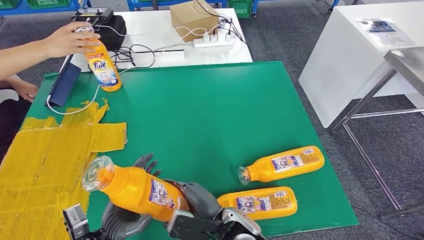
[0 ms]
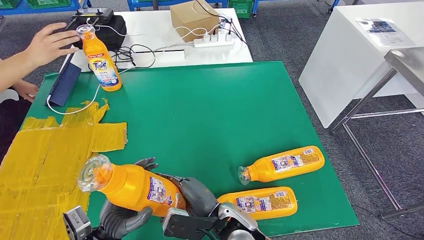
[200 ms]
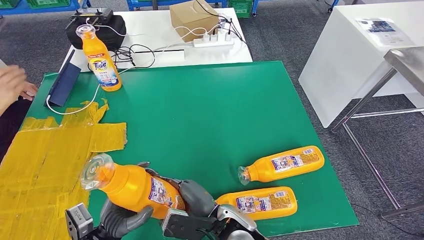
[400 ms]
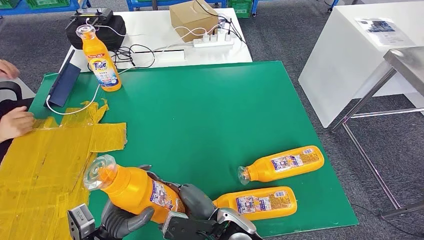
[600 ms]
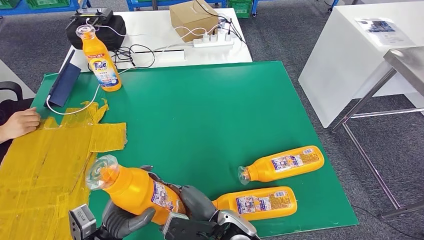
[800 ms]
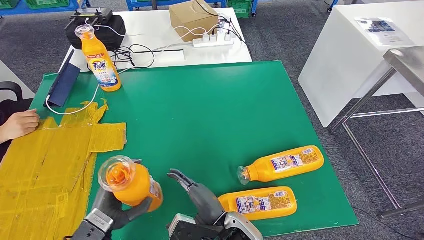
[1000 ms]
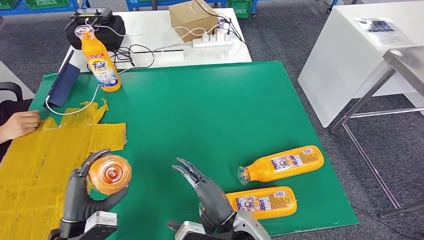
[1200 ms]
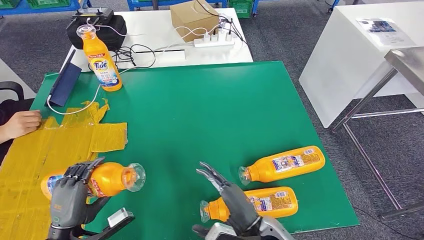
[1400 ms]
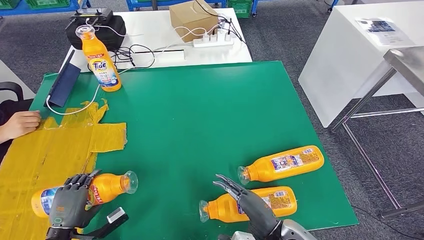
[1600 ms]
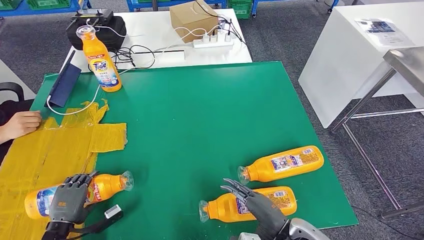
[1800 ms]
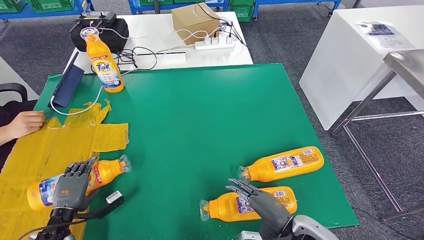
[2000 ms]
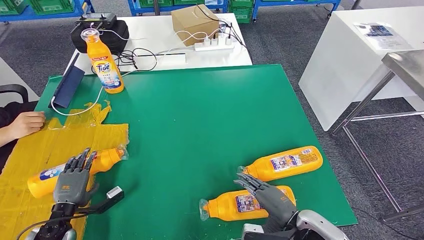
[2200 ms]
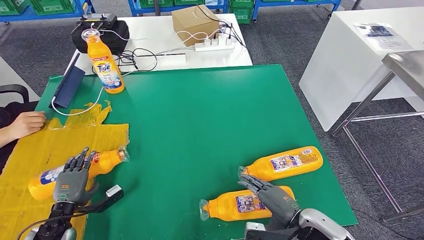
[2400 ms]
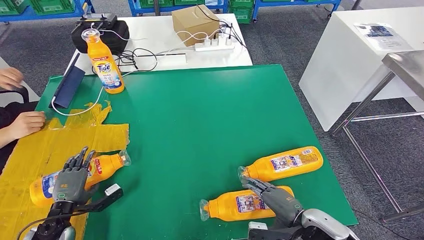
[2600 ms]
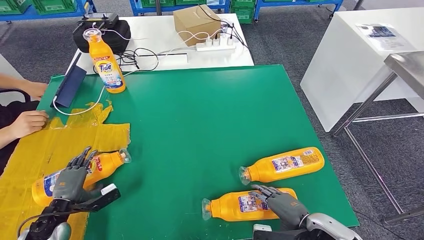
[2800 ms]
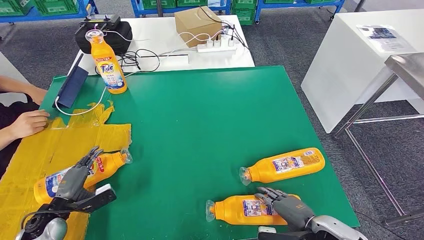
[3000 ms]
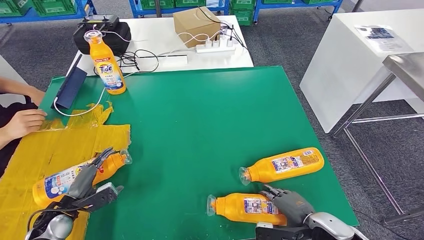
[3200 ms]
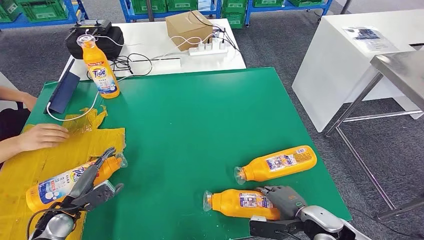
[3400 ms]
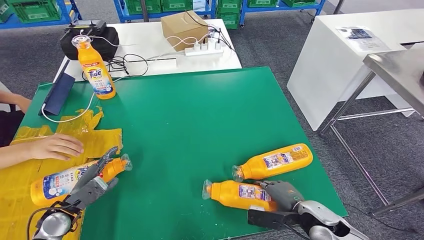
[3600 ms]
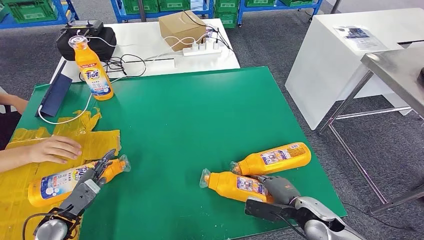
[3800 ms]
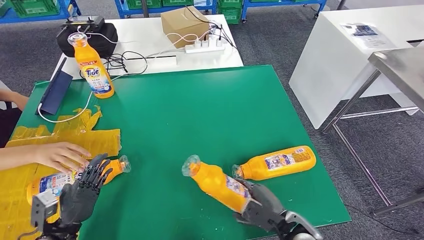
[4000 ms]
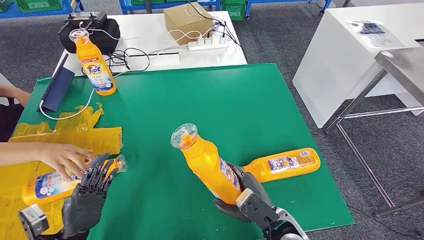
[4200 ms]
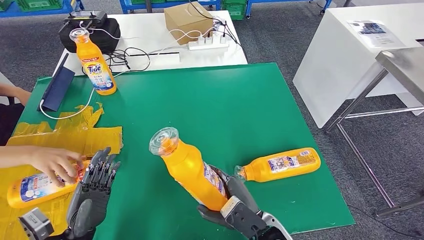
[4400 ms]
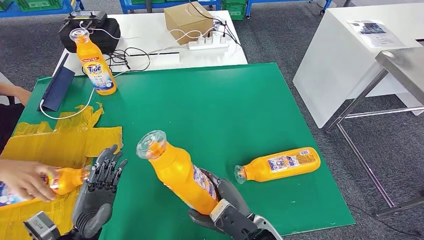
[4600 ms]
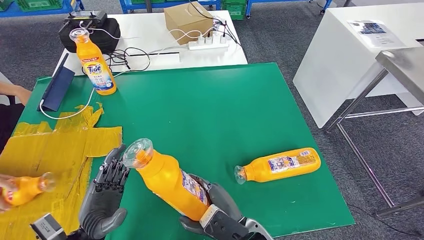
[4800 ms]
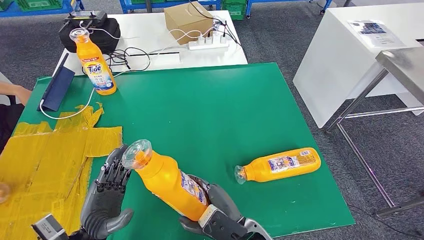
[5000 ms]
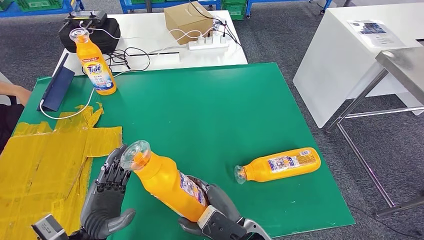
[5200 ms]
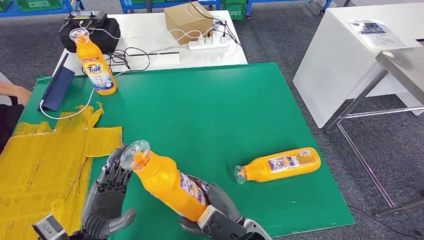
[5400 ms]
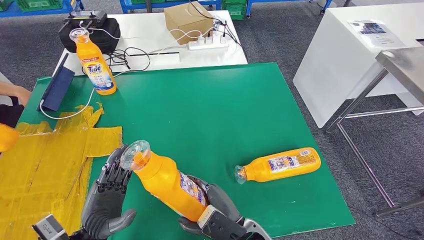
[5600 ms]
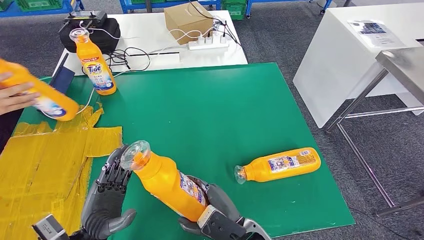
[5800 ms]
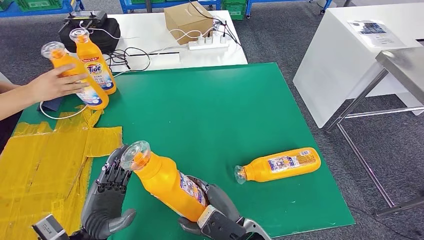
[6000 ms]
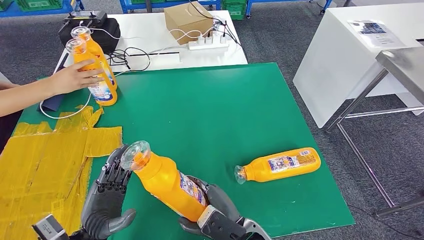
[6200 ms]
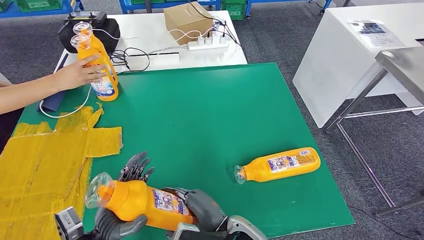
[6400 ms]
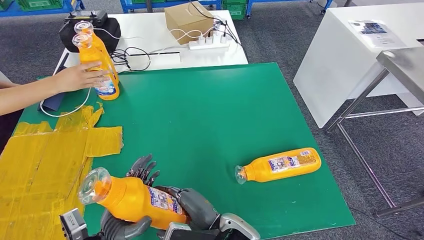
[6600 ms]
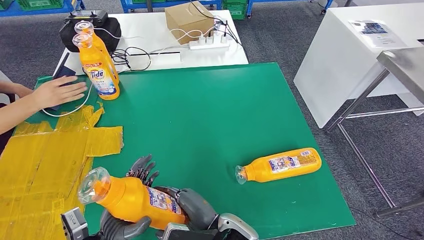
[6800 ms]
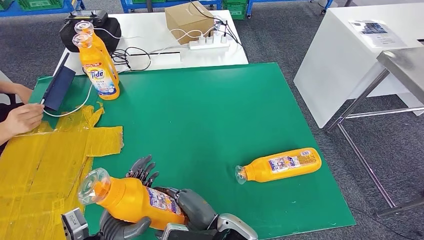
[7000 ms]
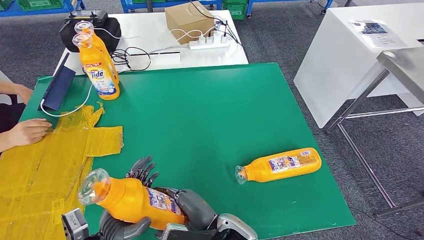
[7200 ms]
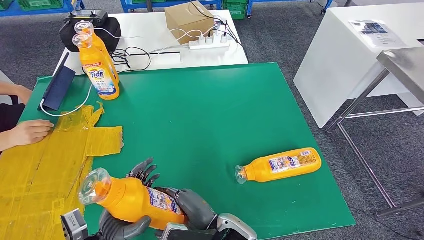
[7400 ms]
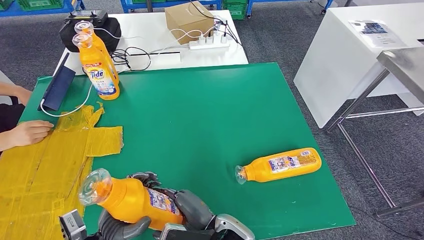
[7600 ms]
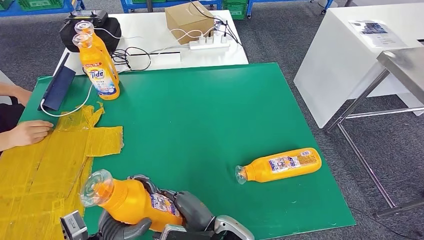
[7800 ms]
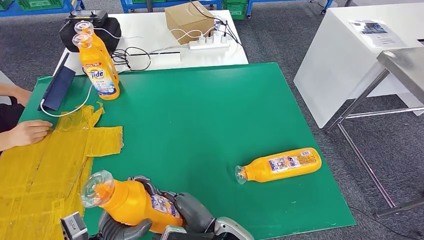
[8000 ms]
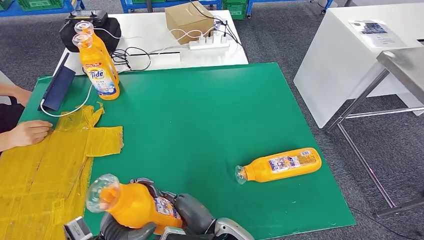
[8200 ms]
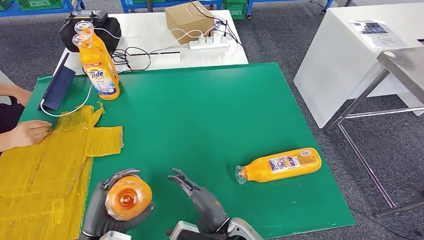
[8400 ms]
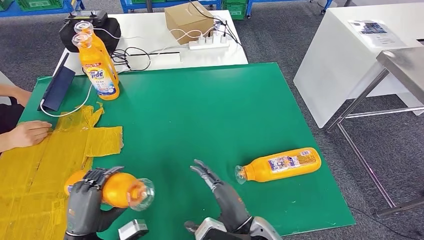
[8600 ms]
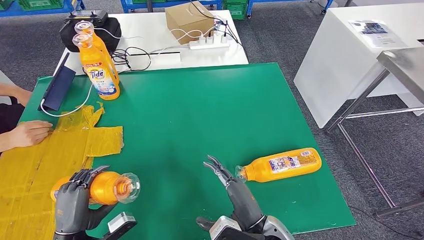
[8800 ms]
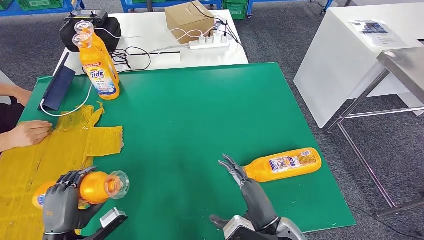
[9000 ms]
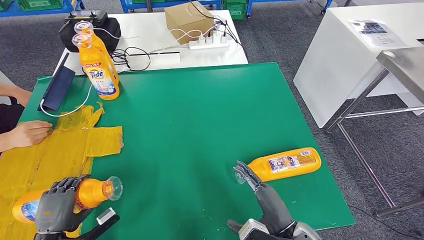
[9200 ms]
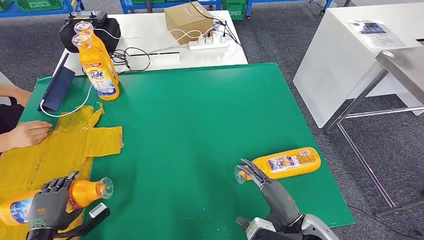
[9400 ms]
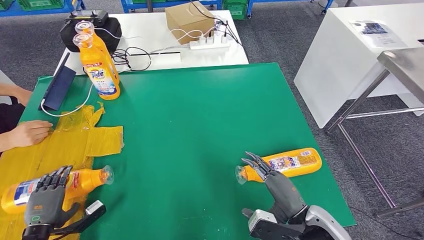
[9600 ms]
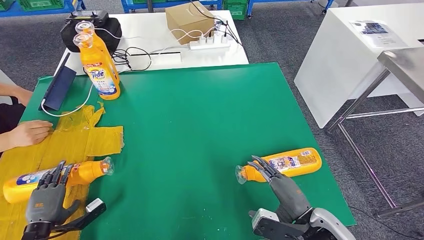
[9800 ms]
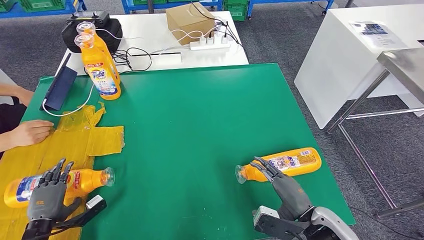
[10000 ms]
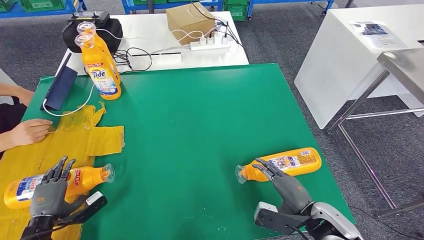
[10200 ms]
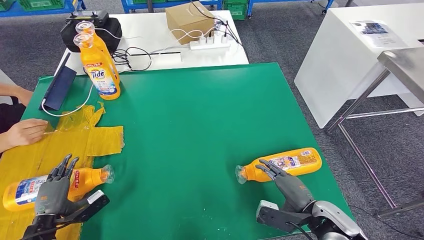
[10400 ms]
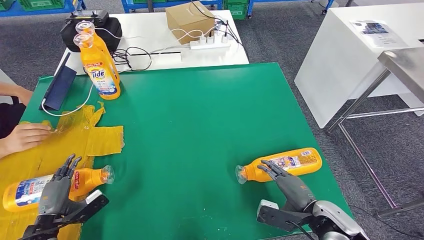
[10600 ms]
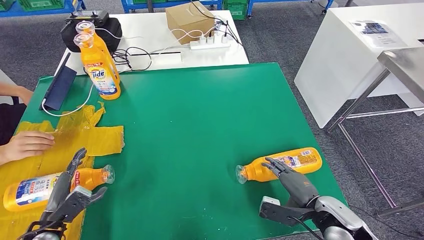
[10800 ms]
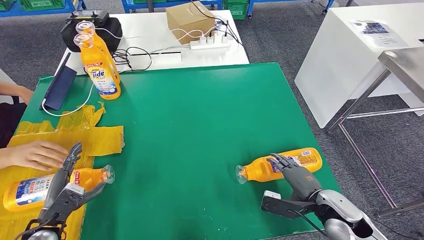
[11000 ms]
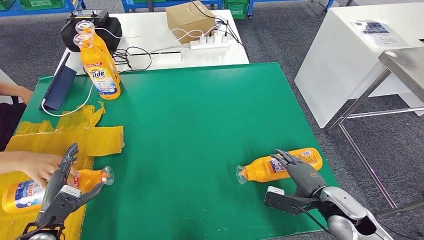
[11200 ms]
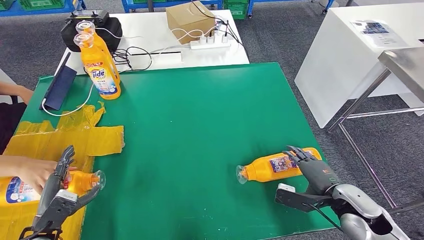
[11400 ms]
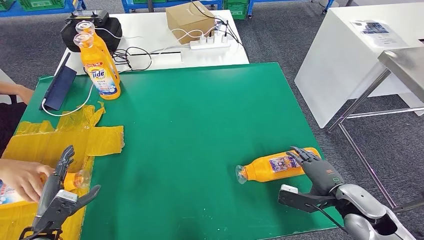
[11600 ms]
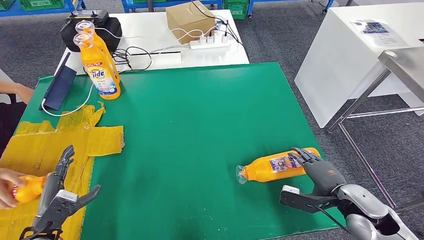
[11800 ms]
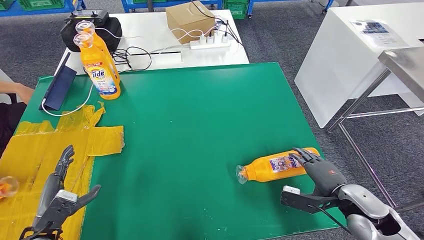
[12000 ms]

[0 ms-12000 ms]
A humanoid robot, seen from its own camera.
Step, 0 ms to 2600 ms: Flip the fast-moving consumer goods bottle to the front side.
Step, 2800 ms to 6600 ms: Pick up the fast-moving consumer goods bottle from the table.
Step, 6800 ms to 10000 ms: Flip the fast-moving consumer goods bottle to the front side.
0 ms to 1600 ms: The left hand shifts roughly 15 cm to the left, while the right hand is displaced to the right by about 15 cm.
4400 ms to 6000 ms: The hands move only a little.
7600 ms to 9000 ms: The left hand heads to the left, covering approximately 10 cm. Meanwhile the right hand is displaced to the right by approximately 10 cm.
9000 ms to 10400 ms: The left hand heads to the left, covering roughly 10 cm. The right hand is displaced to the right by approximately 15 cm.
10400 ms to 12000 ms: The right hand shifts roughly 10 cm to the right.

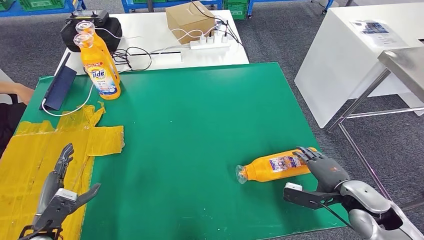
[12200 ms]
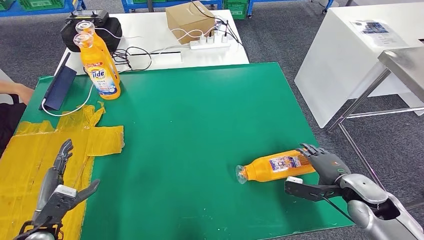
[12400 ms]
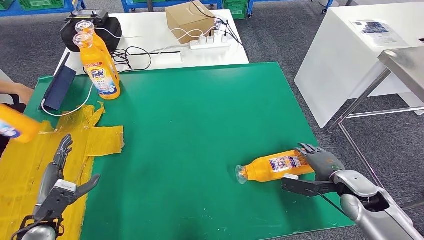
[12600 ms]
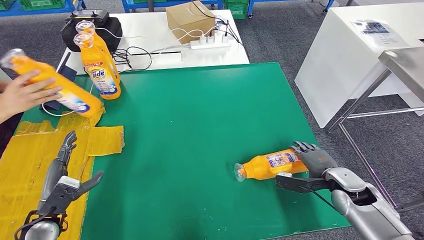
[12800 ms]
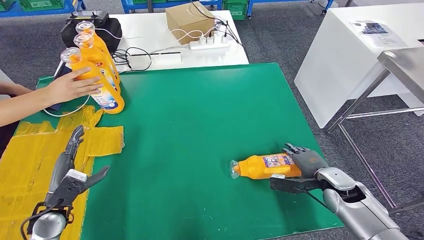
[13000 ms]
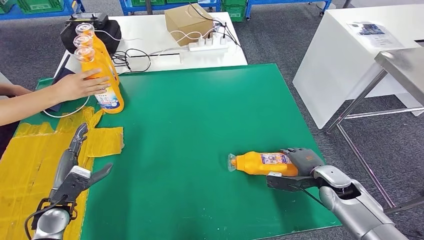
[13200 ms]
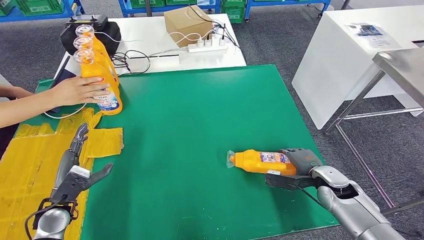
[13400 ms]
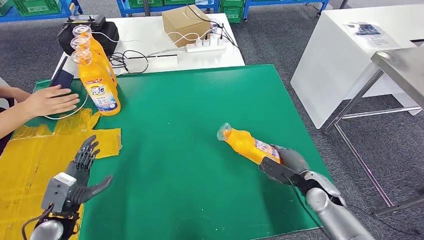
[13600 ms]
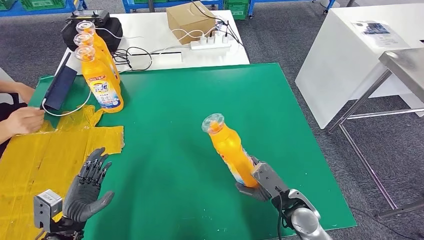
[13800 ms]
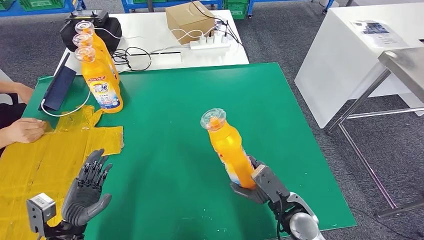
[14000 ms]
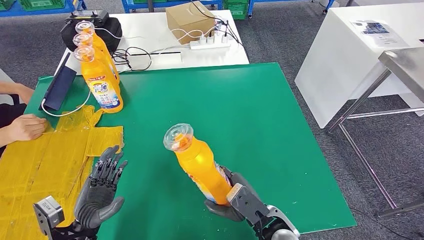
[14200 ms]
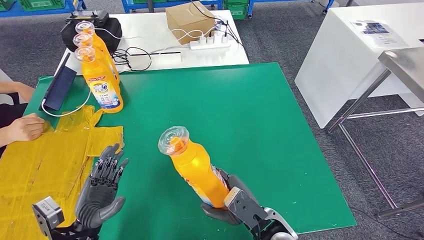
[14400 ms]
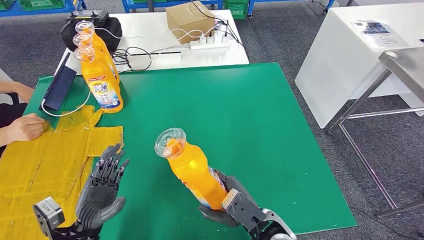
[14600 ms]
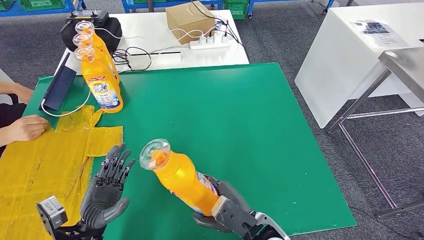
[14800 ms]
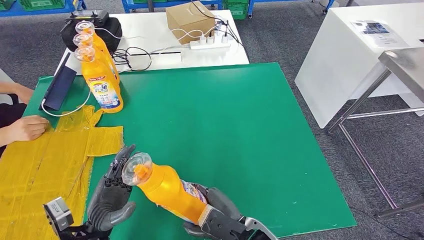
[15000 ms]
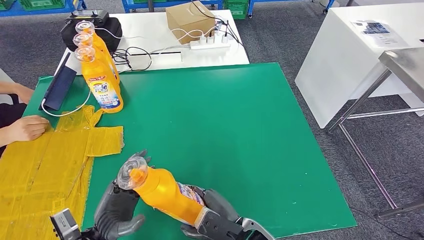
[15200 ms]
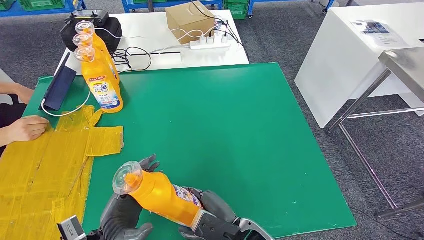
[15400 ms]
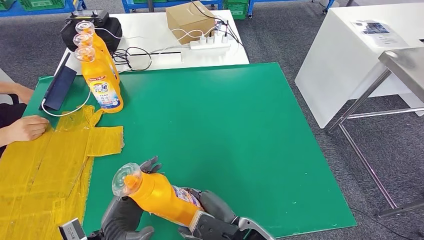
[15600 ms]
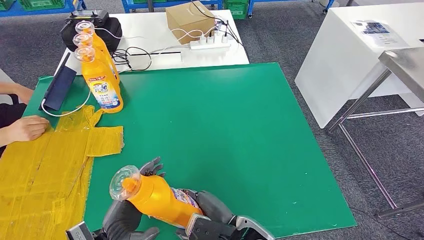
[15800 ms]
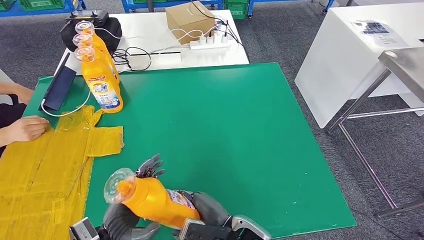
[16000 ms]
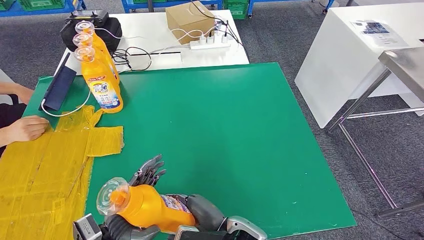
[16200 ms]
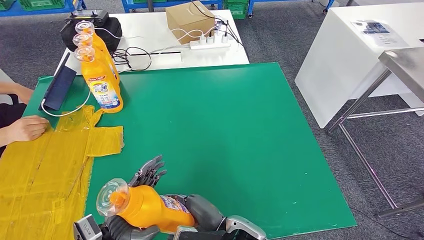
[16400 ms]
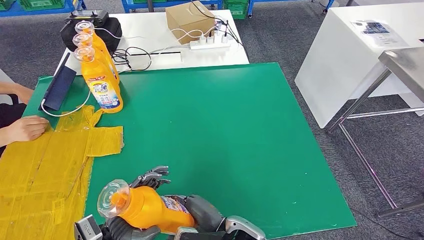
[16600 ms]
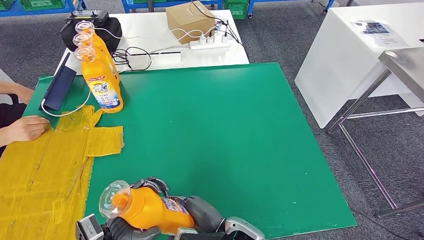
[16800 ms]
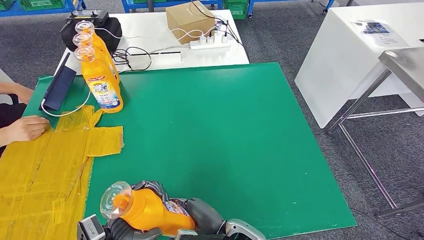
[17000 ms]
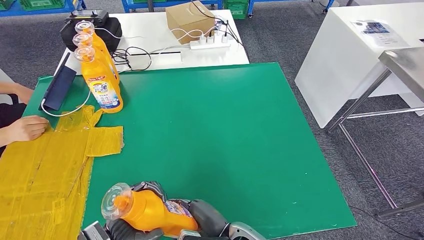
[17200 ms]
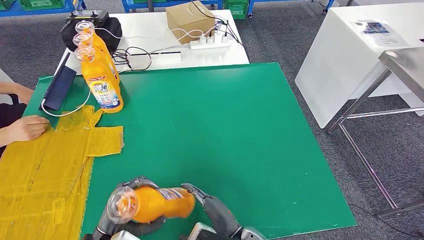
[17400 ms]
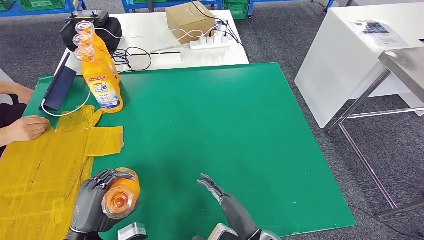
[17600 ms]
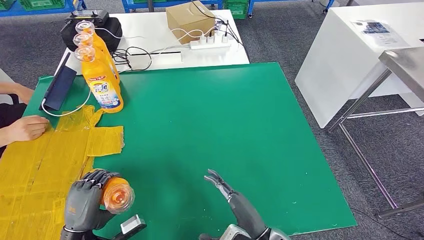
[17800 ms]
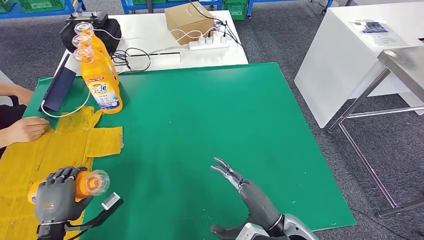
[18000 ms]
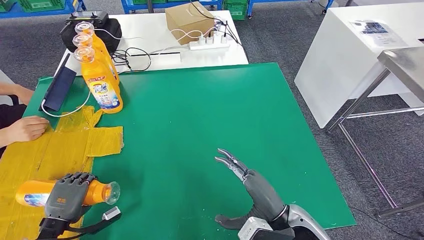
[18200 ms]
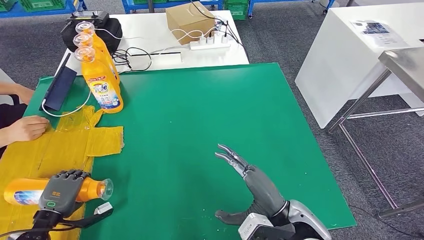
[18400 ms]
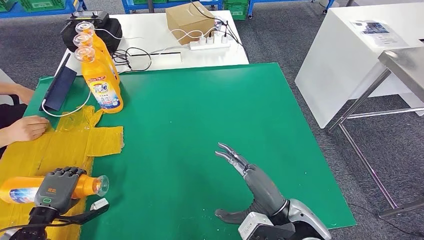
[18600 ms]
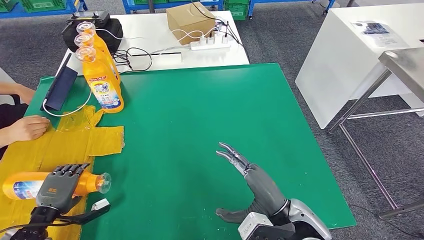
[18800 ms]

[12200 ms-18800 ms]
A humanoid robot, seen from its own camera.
Step, 12200 ms to 15000 ms: Pick up the fast-moving consumer goods bottle from the table.
12200 ms to 13800 ms: The right hand travels to the left and downward by some 15 cm; the left hand heads to the right, covering approximately 5 cm.
13800 ms to 15400 ms: The right hand moves to the left, approximately 15 cm, while the left hand goes about 10 cm to the right.
15400 ms to 17200 ms: The hands move only a little.
17200 ms to 18800 ms: The right hand travels to the right and upward by about 15 cm, while the left hand moves to the left, approximately 20 cm.
